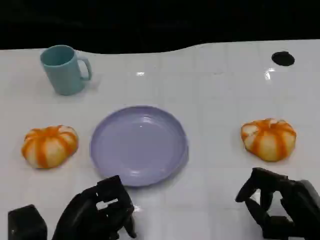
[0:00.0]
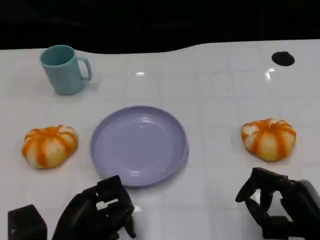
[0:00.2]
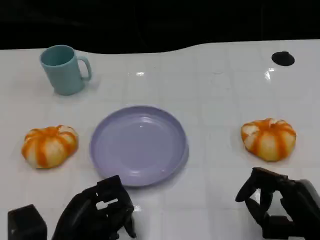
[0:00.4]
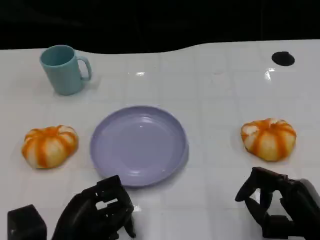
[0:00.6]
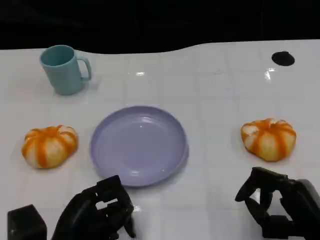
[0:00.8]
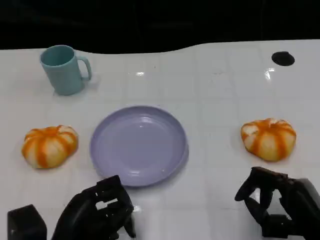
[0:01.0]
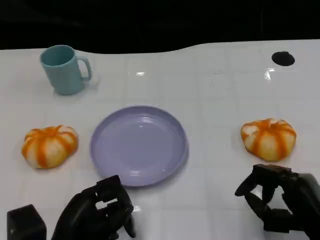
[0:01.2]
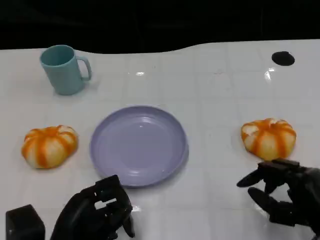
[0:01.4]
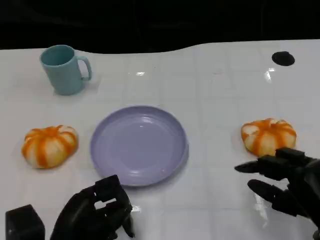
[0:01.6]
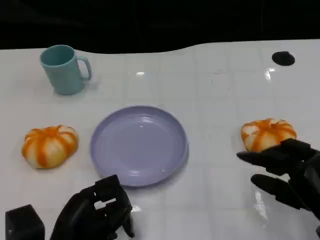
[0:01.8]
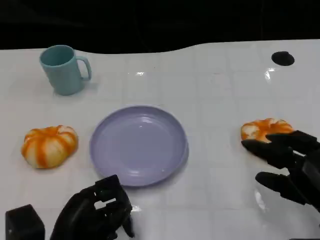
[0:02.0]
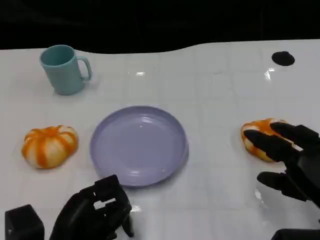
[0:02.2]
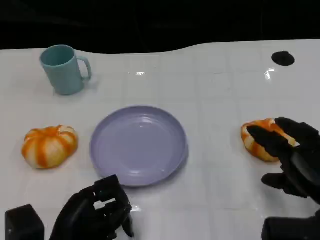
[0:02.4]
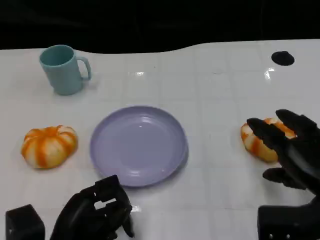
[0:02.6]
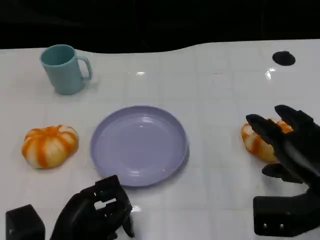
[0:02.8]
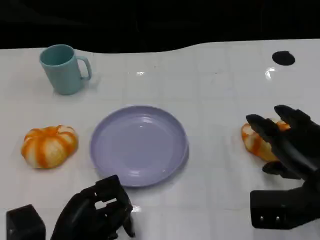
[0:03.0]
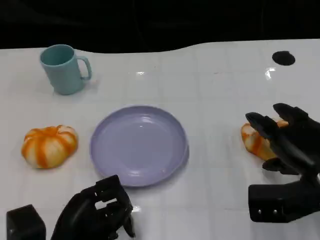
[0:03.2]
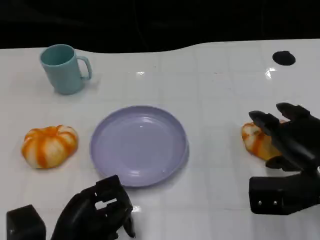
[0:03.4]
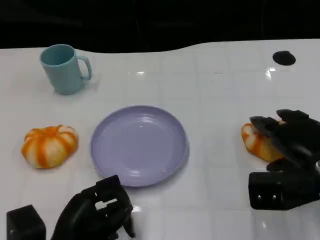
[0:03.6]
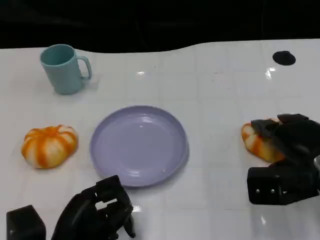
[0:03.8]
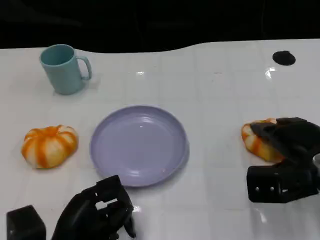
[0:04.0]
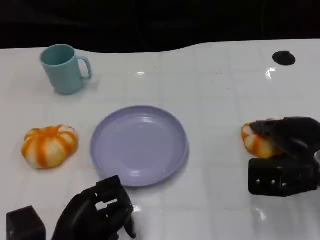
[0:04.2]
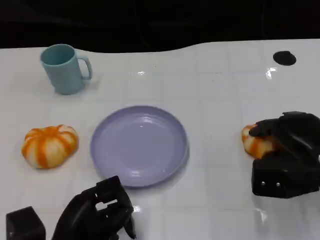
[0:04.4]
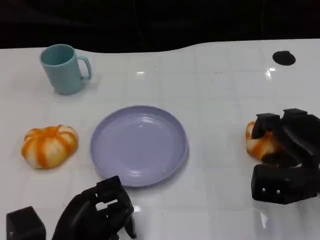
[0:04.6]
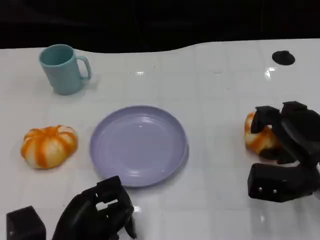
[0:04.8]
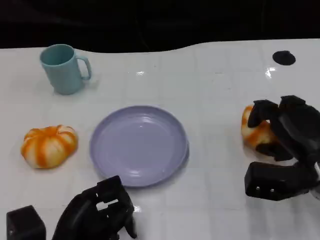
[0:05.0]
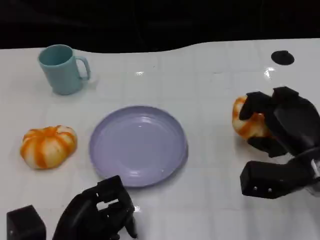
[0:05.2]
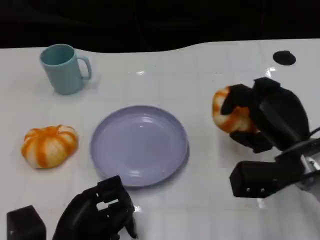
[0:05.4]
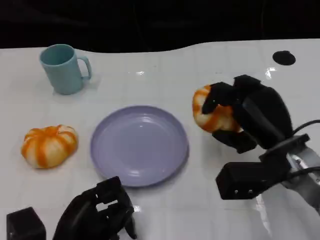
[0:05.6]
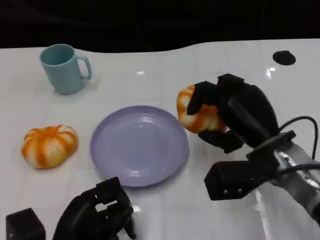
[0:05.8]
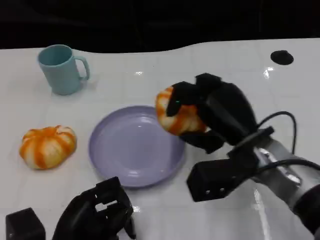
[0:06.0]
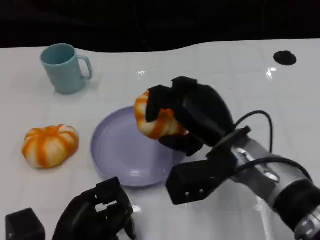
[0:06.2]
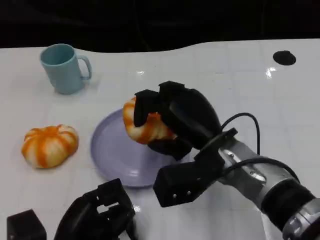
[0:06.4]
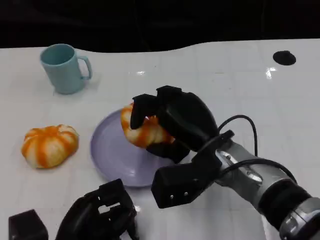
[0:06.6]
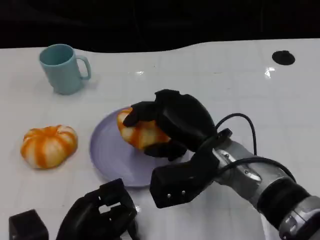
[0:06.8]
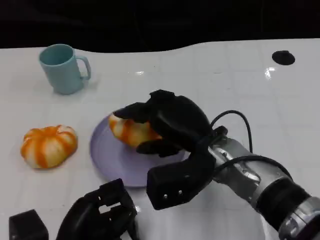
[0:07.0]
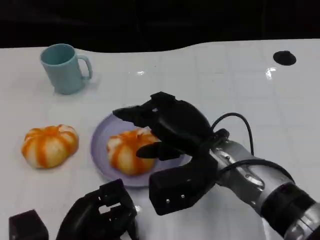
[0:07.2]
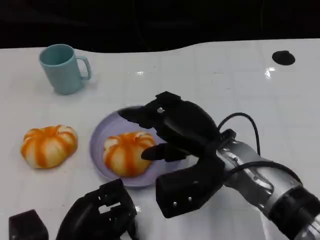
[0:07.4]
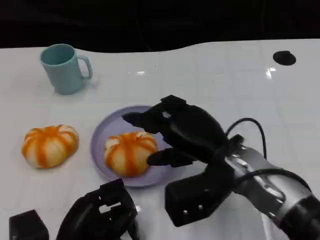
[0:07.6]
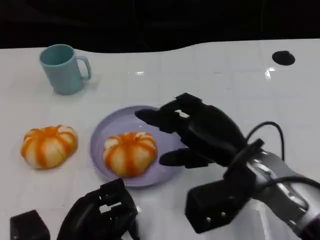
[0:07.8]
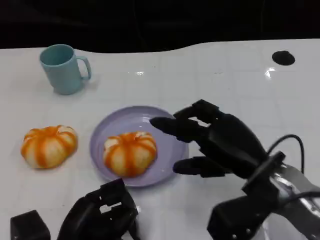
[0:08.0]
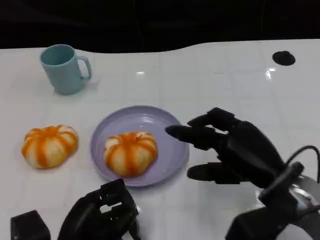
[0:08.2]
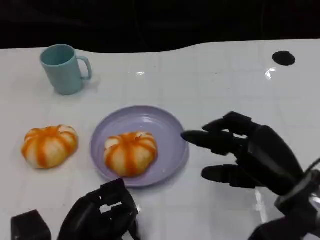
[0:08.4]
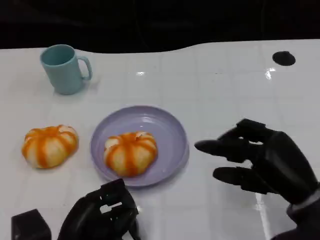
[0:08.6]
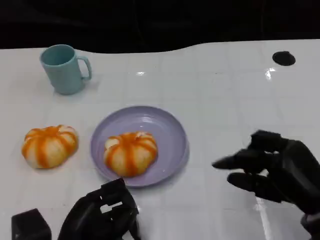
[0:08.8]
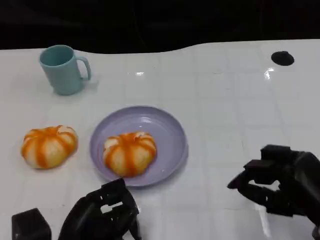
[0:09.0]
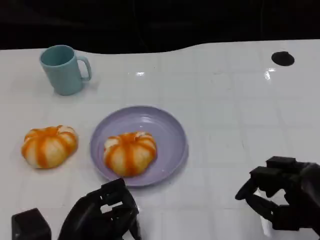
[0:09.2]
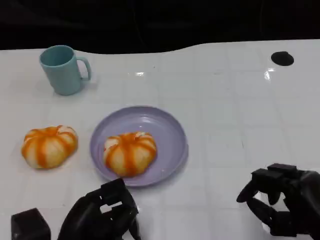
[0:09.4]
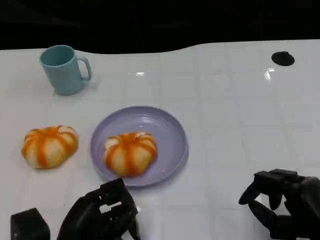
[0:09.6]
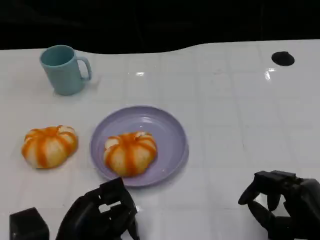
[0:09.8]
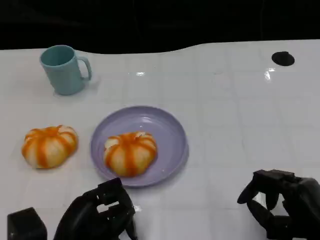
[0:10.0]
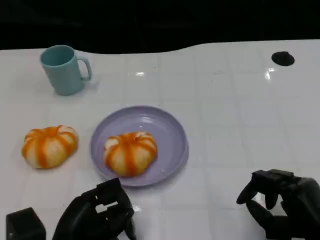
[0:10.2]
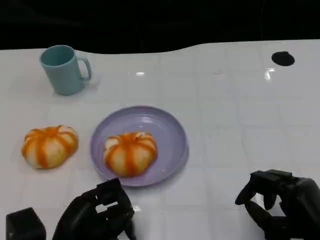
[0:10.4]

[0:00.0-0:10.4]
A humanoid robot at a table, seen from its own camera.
Task of the whole recording: Grasp the bread from the table and place it into the plate.
0:00.0 to 0:01.4: The hands make only small movements.
0:01.4 to 0:03.0: The right hand heads forward, covering approximately 5 cm.
0:03.0 to 0:04.4: The hands stay close to where they were, moving slightly.
0:04.4 to 0:06.0: The right hand heads to the left, covering some 10 cm.
0:07.4 to 0:09.0: The right hand shifts approximately 20 cm to the right and backward.
0:09.0 to 0:10.4: The hands make only small movements.

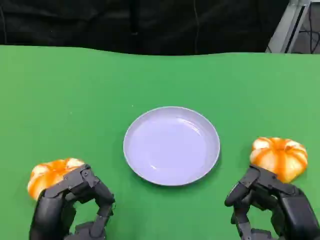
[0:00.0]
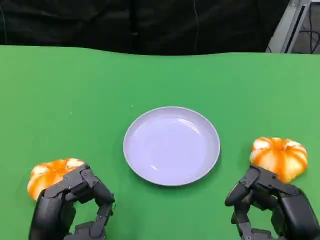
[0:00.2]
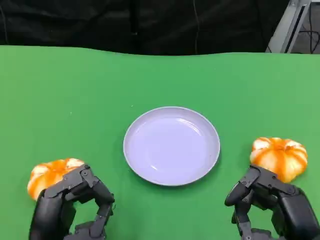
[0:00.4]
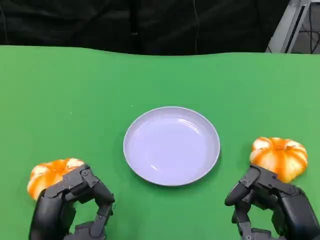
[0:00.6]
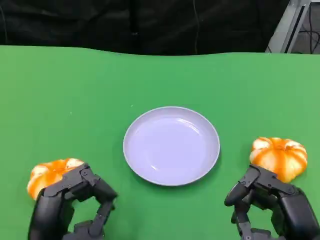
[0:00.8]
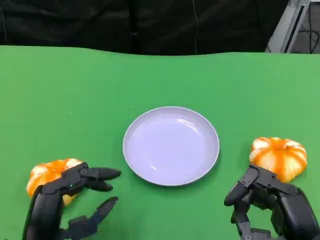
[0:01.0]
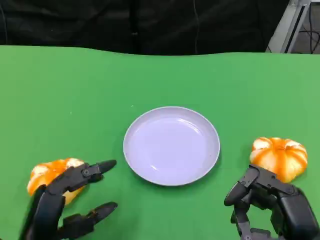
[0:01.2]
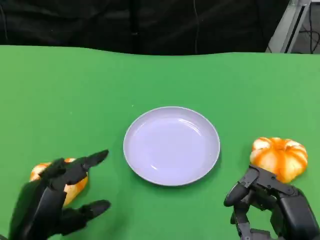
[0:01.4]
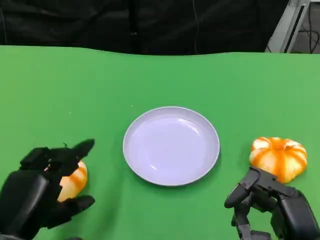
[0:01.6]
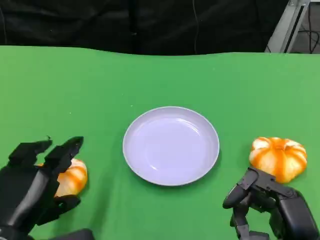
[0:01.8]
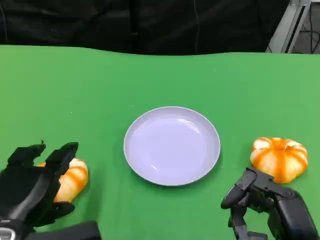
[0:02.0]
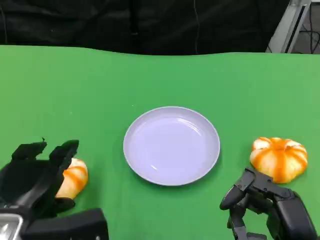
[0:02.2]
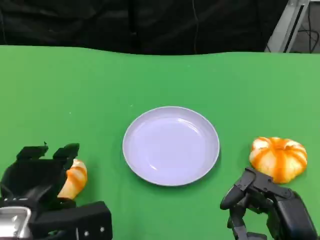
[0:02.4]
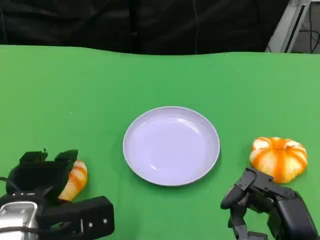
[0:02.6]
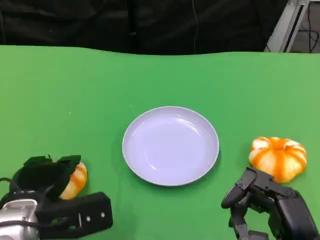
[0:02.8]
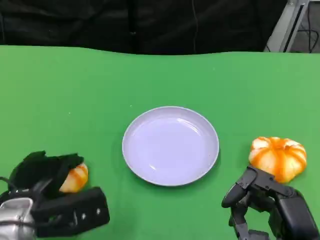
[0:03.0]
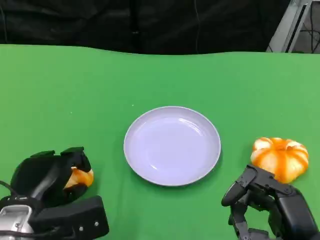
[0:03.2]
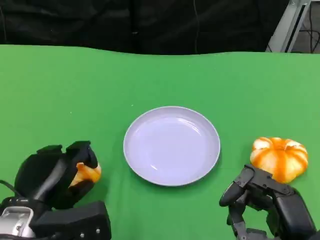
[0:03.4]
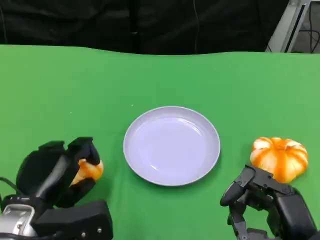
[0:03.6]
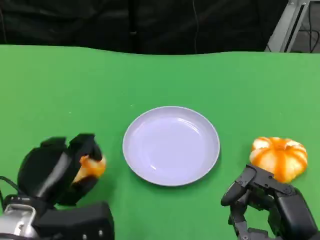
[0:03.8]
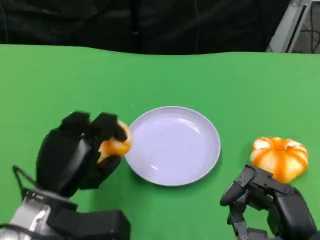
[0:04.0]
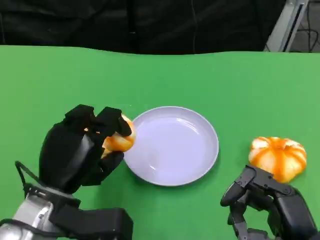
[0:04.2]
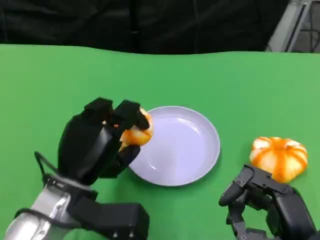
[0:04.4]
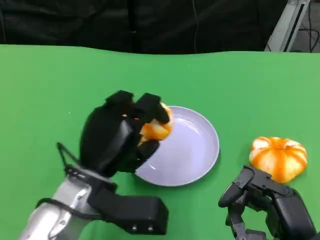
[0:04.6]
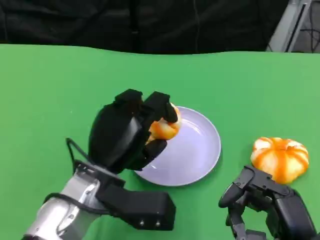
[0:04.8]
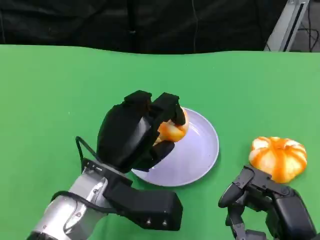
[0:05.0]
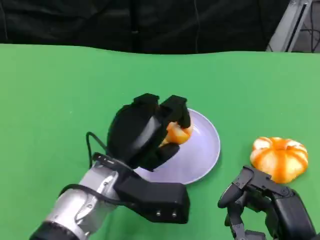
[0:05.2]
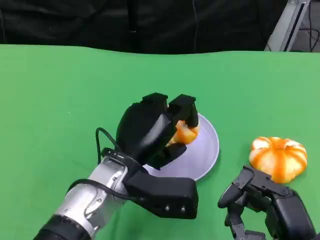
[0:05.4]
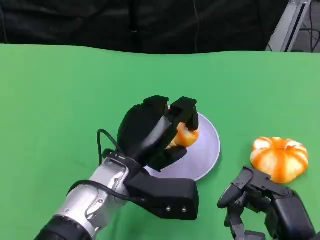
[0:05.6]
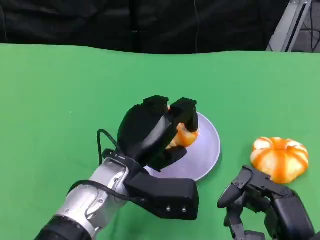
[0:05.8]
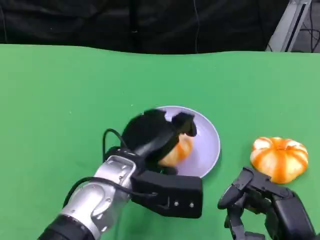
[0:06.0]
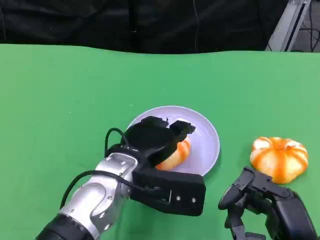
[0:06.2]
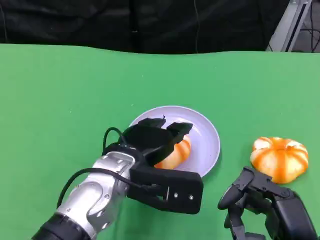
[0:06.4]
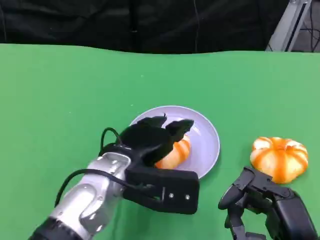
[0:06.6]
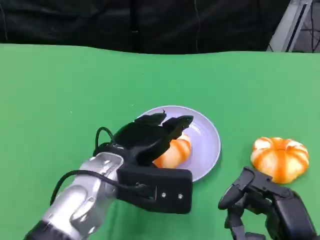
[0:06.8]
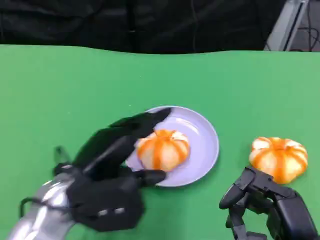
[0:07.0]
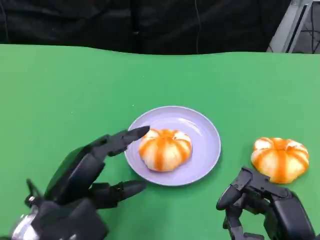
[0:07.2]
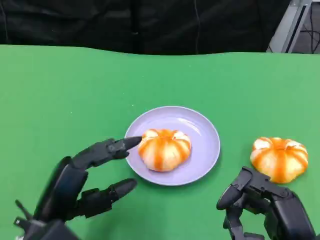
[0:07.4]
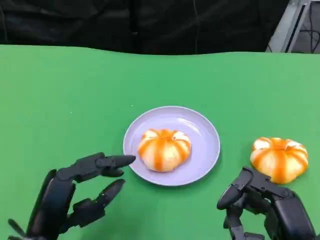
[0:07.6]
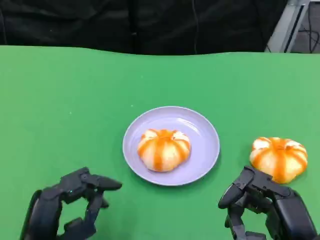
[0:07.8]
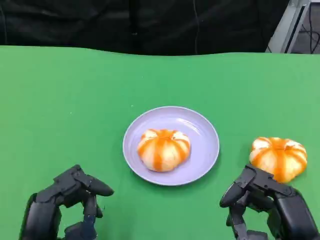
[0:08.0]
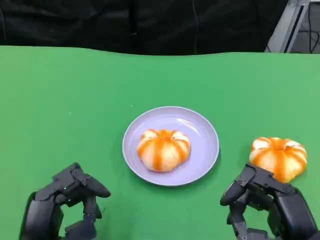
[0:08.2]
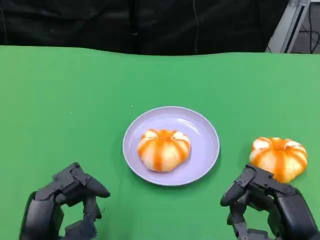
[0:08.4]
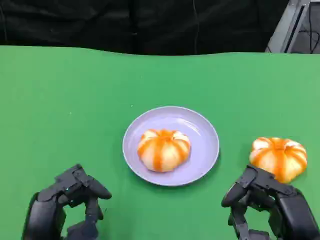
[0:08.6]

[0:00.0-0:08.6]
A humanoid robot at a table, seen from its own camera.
Task of the whole recording: Grasp the bread from the table and place it into the plate.
0:01.4 to 0:02.8: The left hand heads forward, covering about 5 cm.
0:02.8 to 0:04.4: The left hand heads to the right, covering some 5 cm.
0:04.4 to 0:05.8: The left hand goes roughly 5 cm to the right.
0:05.8 to 0:07.2: The left hand is displaced to the left and backward by some 15 cm.
0:07.2 to 0:08.6: The left hand heads backward, covering about 5 cm.

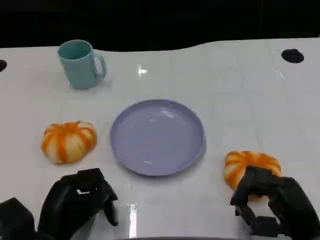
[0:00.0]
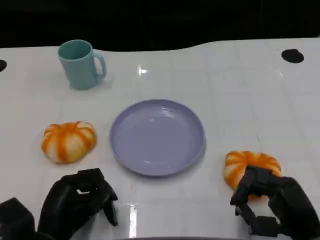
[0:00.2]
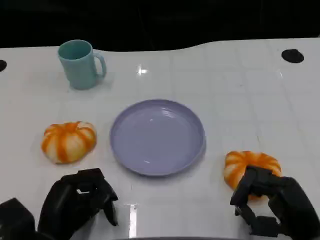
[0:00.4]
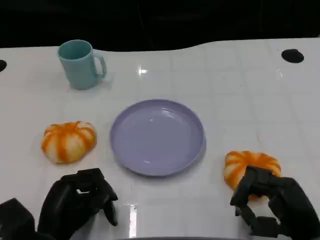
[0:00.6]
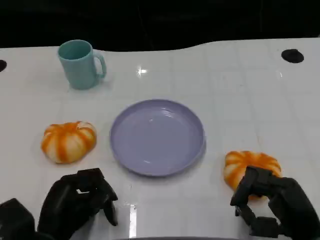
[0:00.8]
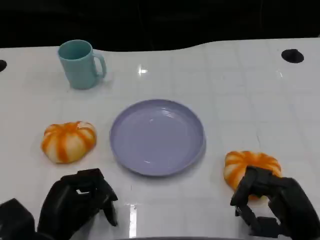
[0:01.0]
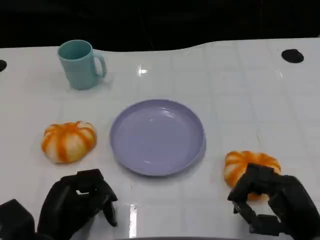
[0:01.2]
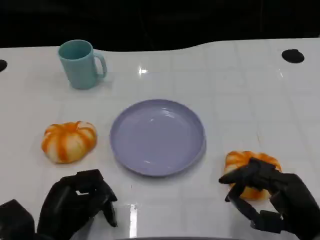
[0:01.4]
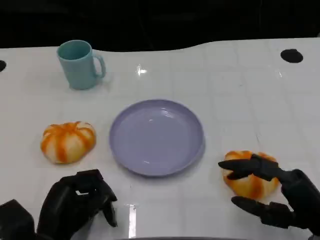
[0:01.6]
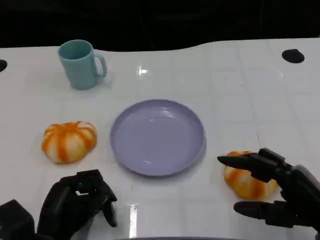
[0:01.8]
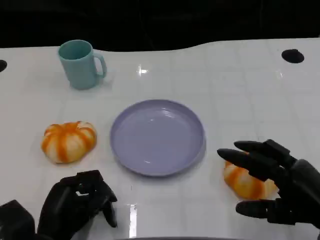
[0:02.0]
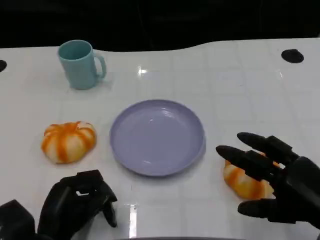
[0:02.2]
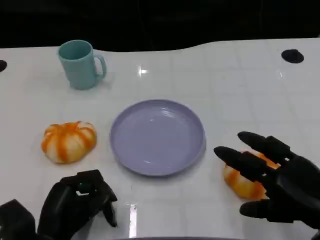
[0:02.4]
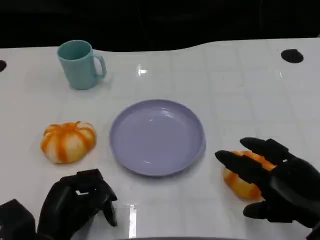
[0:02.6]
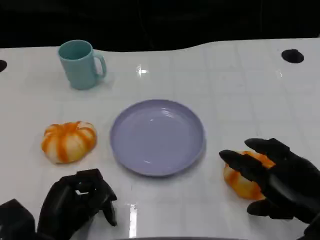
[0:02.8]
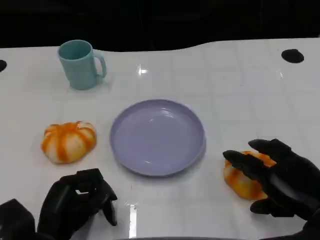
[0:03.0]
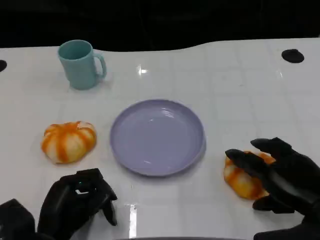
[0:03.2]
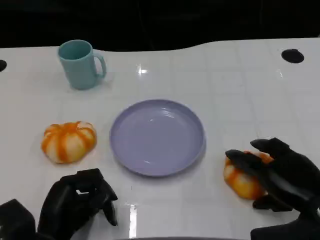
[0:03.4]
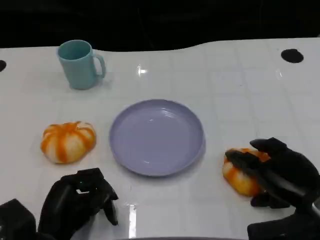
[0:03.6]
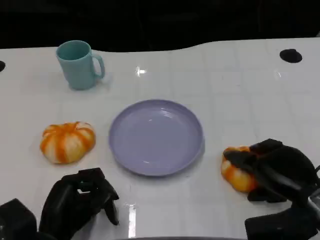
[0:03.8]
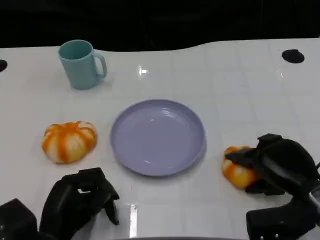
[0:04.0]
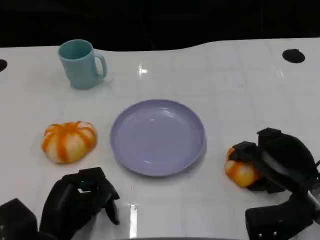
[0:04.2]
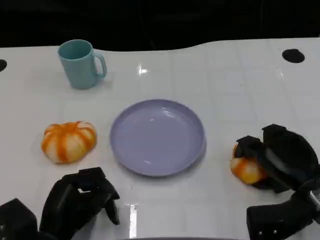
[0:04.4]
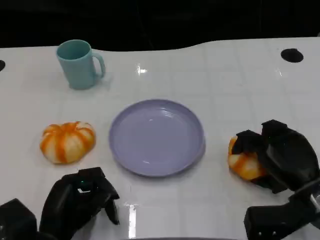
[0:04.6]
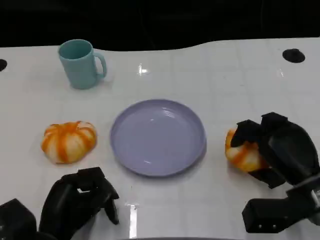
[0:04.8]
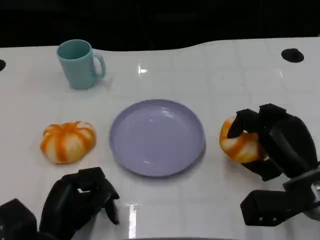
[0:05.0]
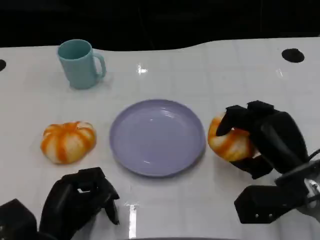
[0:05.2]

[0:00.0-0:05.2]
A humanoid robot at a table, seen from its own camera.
Task of the whole recording: Grasp the bread from the table and place it into the plate.
0:03.4 to 0:05.2: The right hand ends up some 5 cm from where it was.
